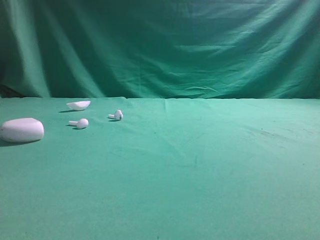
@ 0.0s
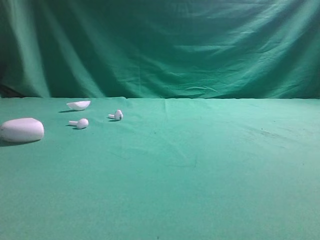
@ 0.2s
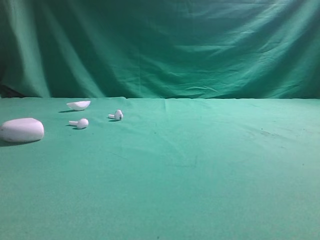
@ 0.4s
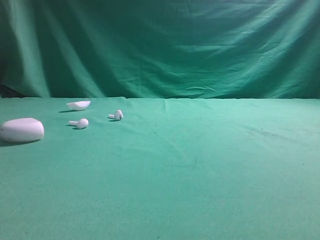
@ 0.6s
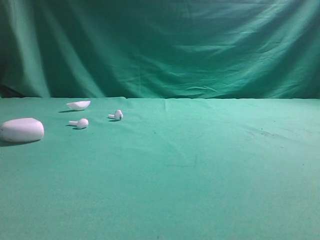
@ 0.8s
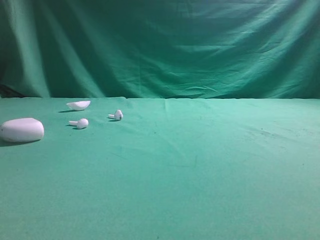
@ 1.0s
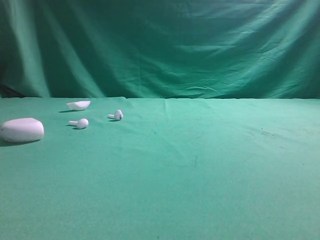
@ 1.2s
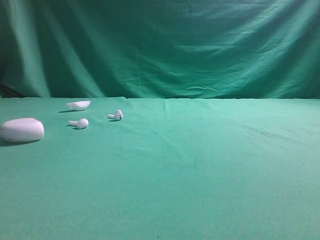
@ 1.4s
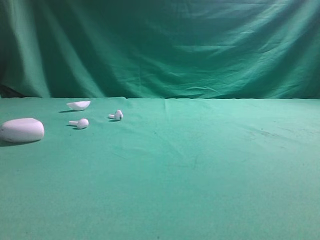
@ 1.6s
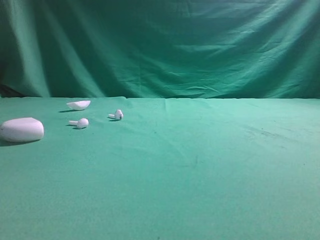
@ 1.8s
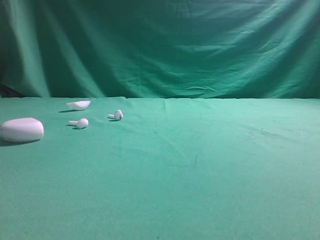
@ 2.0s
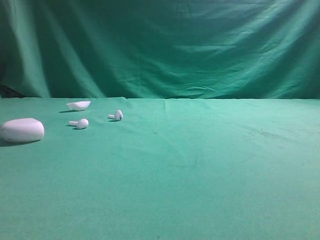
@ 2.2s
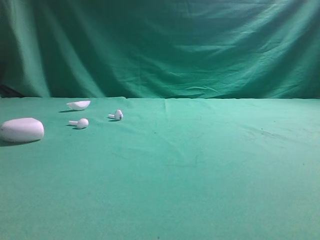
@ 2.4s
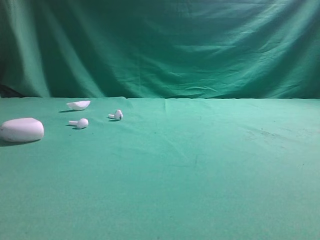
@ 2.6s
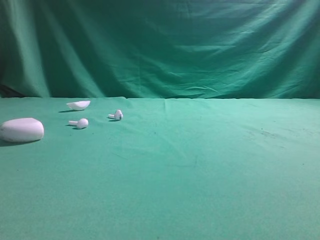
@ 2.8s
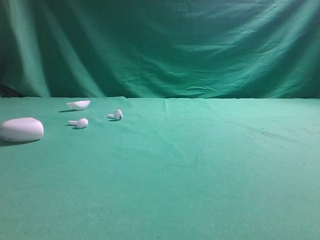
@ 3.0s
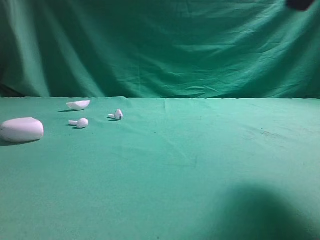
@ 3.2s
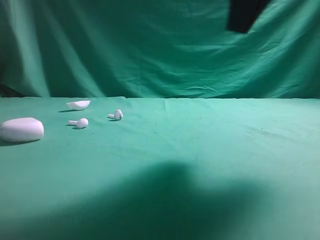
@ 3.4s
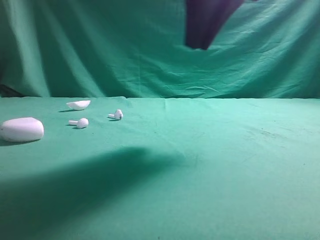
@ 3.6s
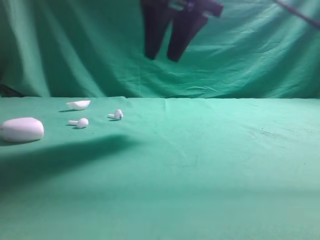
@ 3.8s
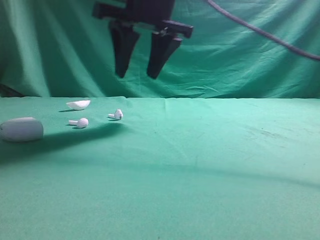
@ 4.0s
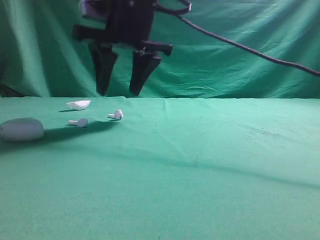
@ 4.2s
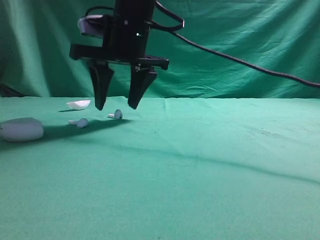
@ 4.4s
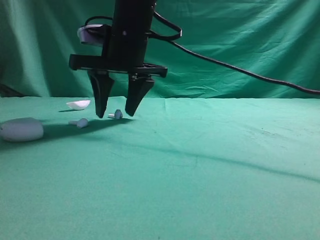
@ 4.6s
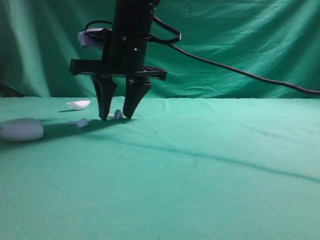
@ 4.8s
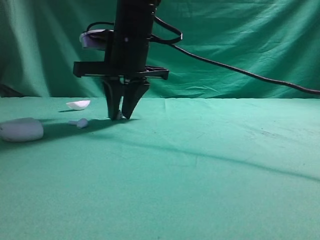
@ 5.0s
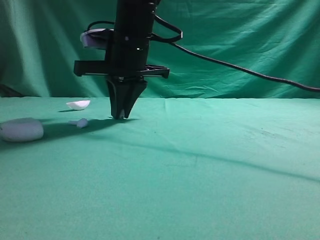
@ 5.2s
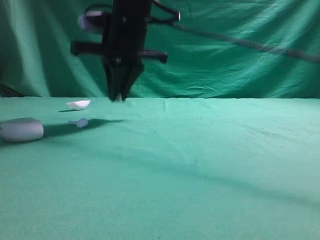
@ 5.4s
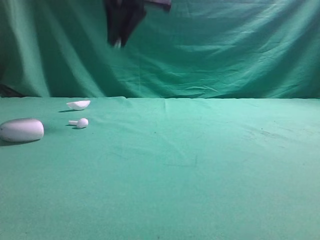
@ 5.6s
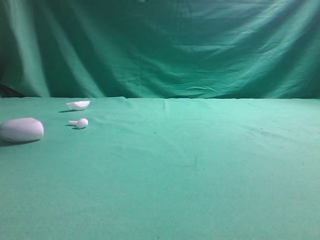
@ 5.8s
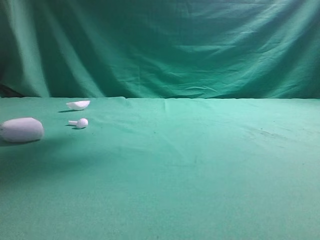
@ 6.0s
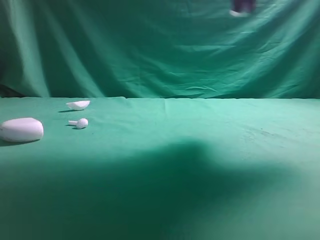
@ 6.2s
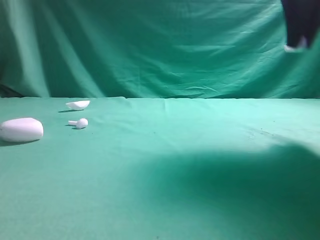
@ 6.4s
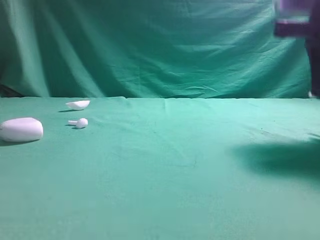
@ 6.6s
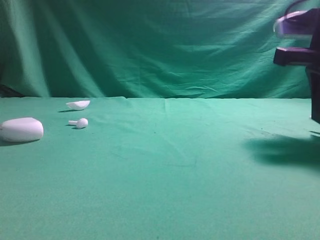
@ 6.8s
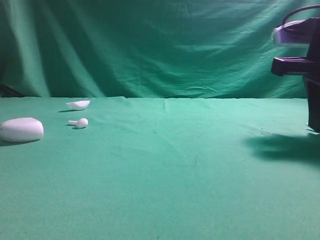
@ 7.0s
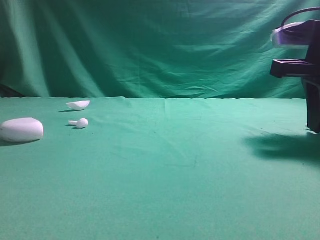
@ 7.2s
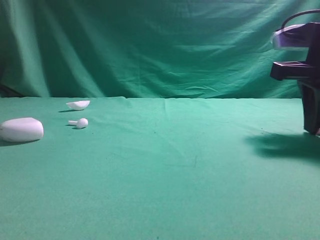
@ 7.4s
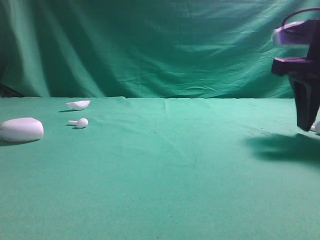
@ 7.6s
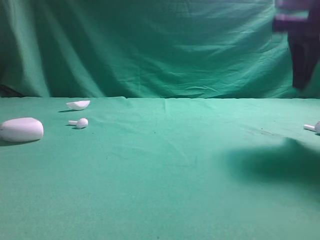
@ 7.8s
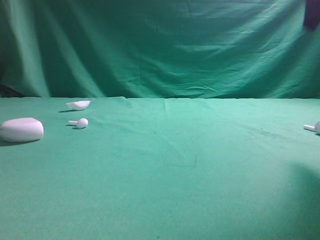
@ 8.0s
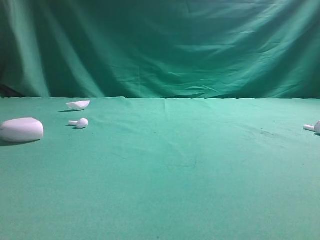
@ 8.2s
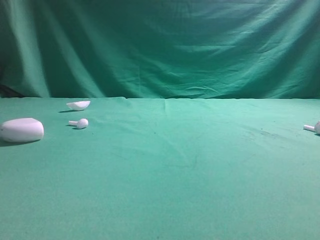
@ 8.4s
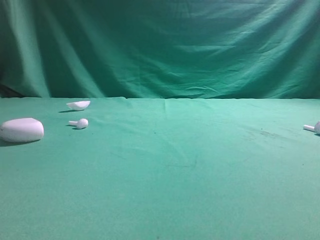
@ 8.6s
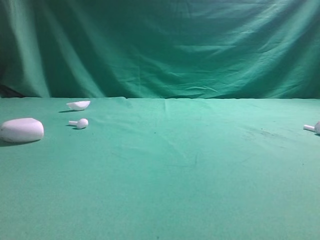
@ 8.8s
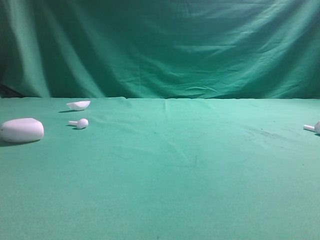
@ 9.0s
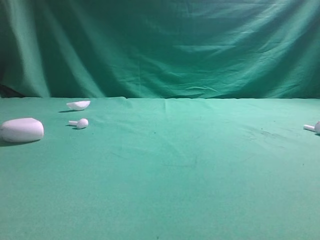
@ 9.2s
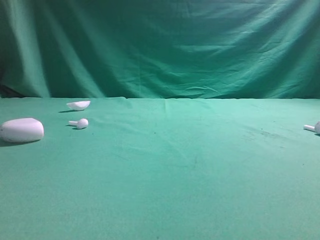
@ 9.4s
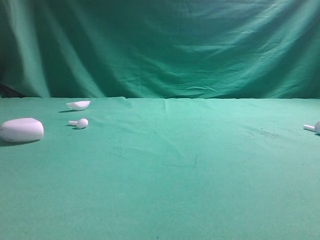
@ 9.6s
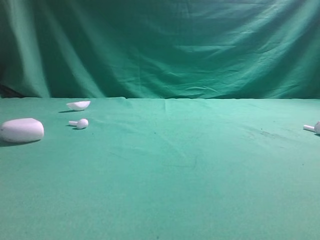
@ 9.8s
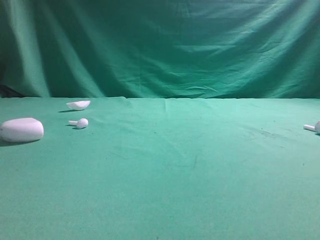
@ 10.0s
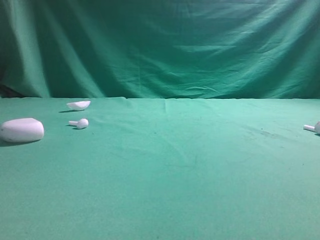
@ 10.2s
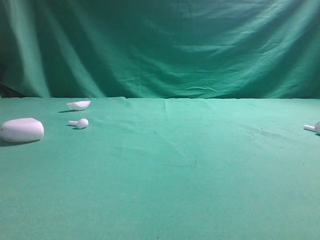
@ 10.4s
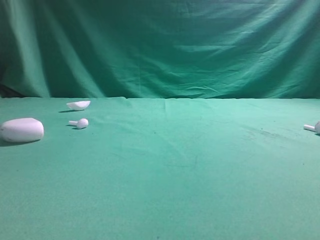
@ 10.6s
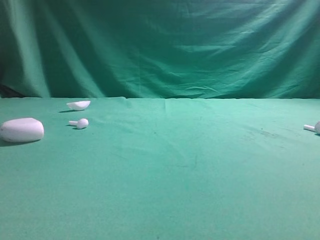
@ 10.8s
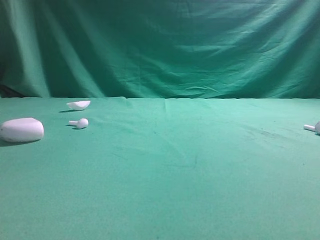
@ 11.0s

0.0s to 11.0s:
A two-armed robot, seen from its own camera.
Step, 0.0s to 5.4s: Grasp the Bluetooth earbud.
Step, 5.6s to 7.8s: Place bluetooth earbud on the right side of the table.

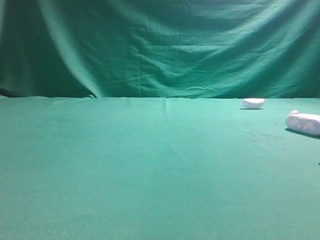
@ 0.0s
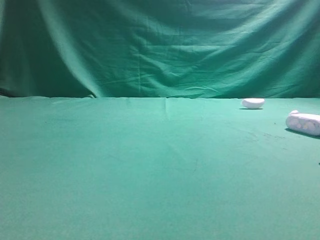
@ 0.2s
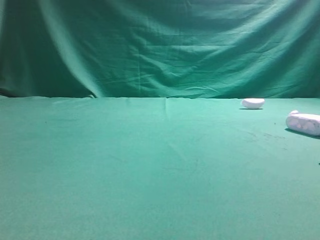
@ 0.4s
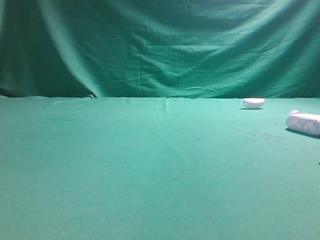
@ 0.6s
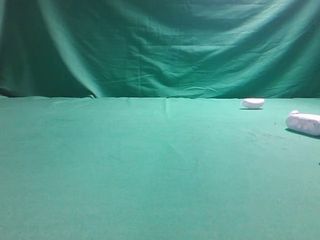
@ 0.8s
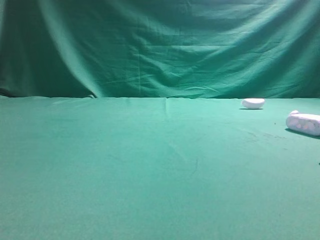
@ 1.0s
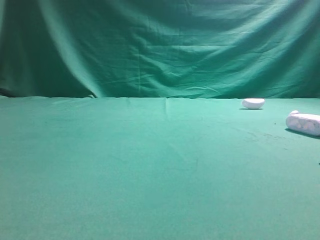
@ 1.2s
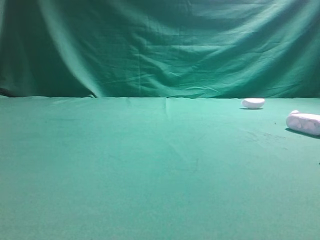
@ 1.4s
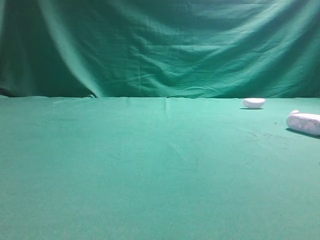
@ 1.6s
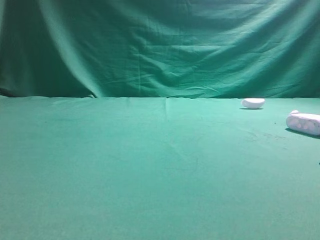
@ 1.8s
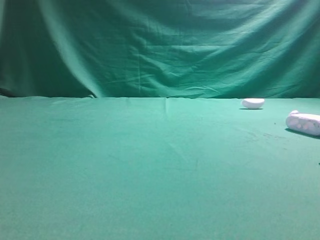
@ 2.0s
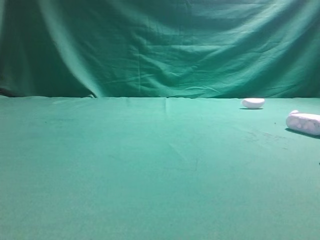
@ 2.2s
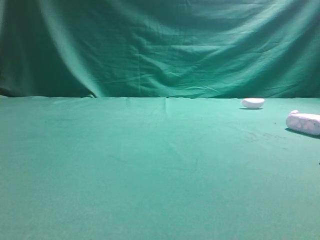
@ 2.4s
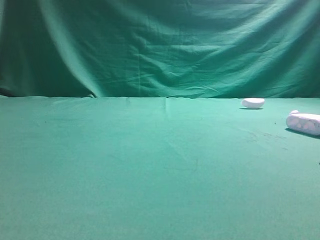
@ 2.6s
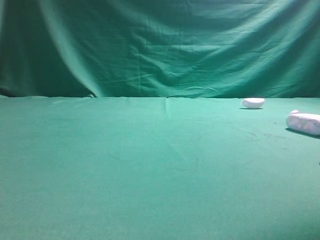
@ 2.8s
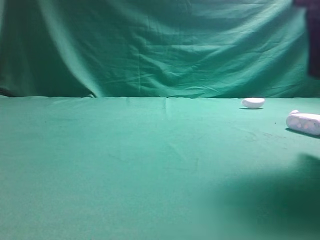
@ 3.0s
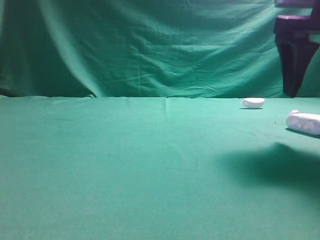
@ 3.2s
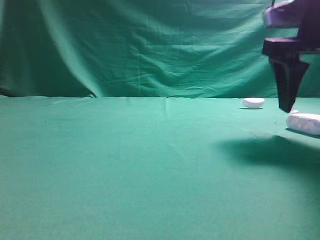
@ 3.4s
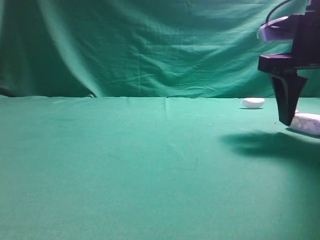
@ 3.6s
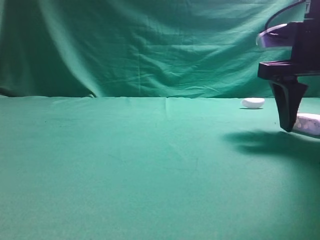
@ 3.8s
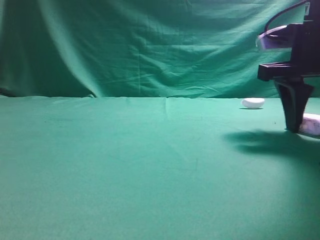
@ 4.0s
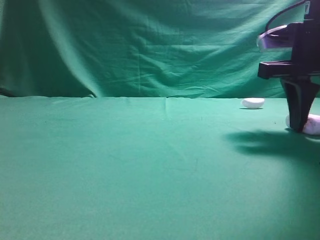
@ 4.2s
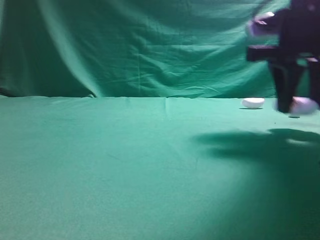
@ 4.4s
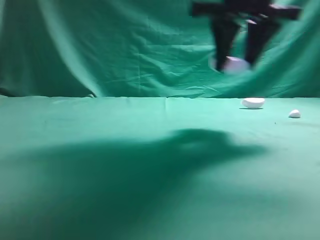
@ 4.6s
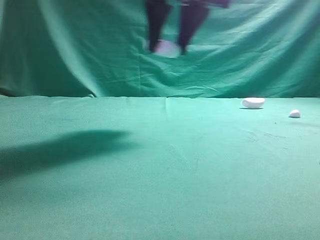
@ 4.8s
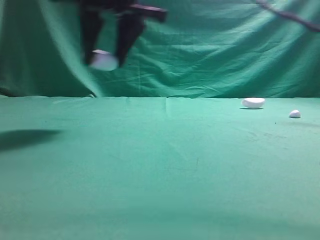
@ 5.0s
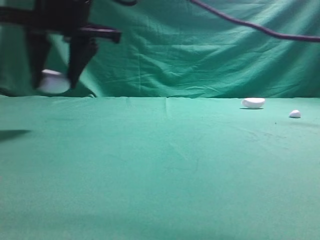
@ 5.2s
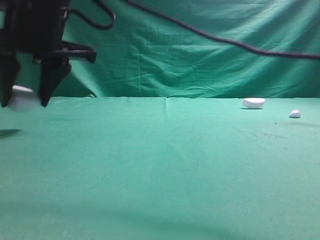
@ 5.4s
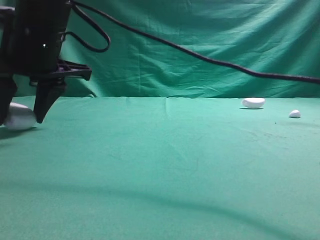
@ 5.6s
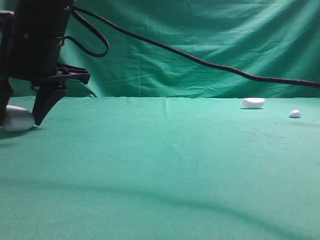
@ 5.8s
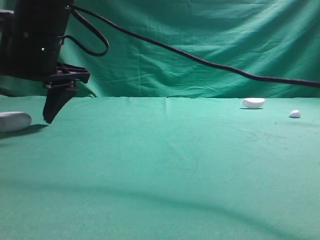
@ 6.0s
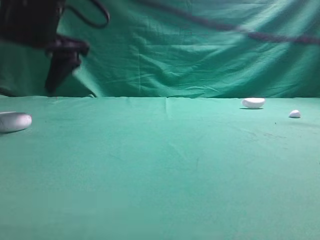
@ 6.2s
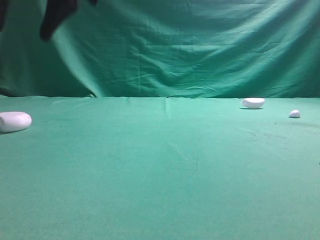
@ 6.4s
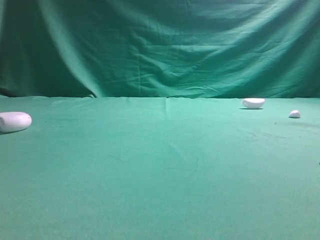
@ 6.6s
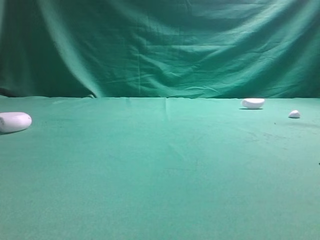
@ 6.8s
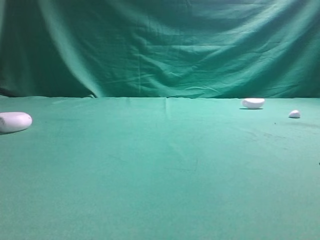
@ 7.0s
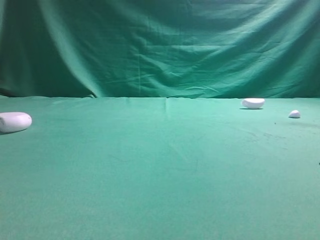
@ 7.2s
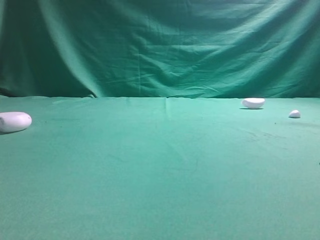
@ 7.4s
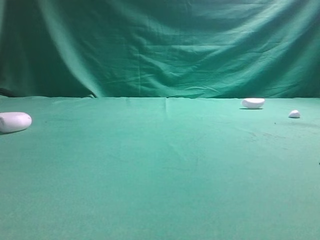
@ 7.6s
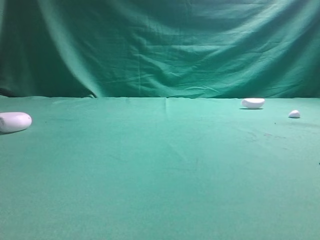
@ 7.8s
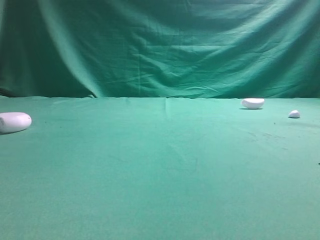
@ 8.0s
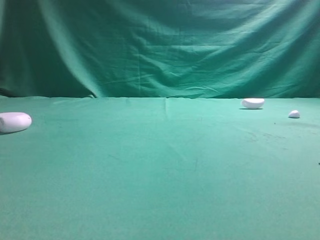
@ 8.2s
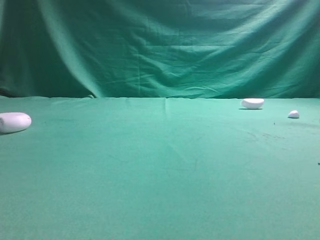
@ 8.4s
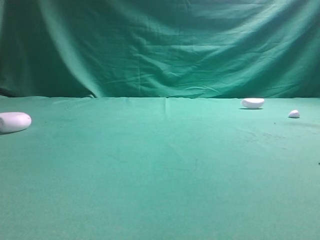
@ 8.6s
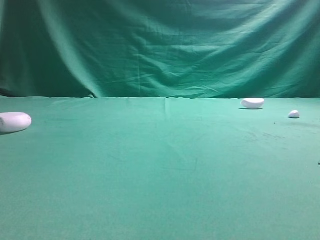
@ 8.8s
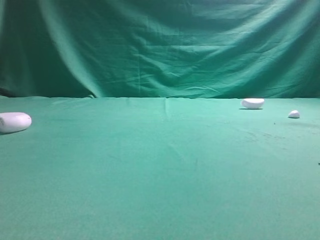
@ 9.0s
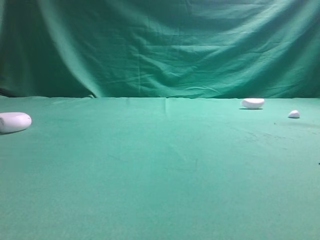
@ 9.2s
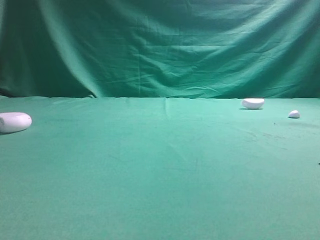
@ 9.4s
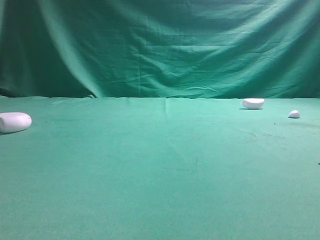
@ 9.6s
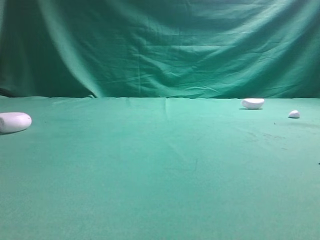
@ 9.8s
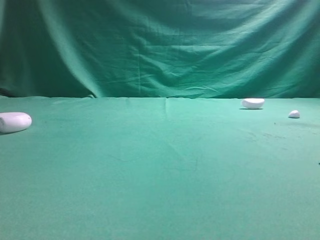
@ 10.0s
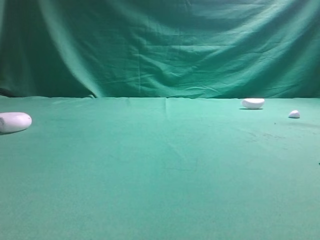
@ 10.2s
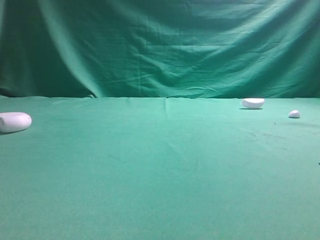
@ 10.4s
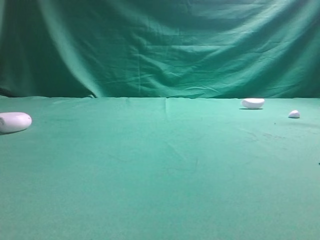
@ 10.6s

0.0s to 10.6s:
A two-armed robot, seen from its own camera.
Step, 0.0s to 3.6s: Grasp the Bluetooth earphone case.
Step, 3.8s to 6.2s: Place bluetooth earphone case on the left side of the table.

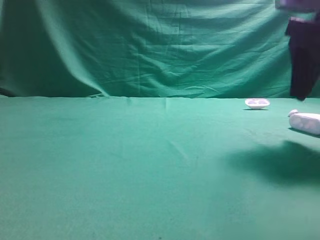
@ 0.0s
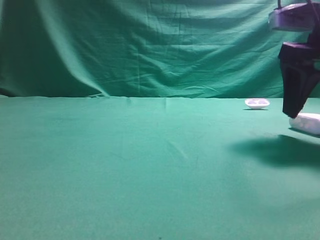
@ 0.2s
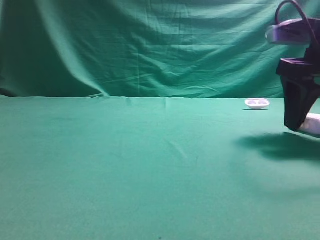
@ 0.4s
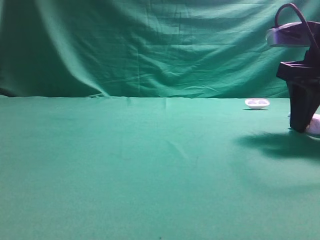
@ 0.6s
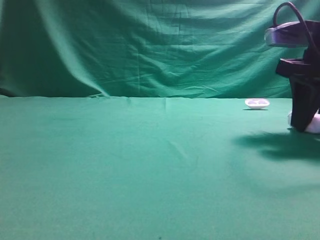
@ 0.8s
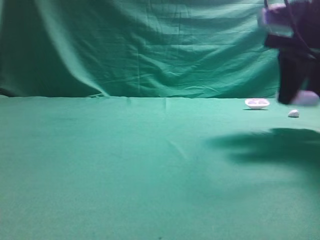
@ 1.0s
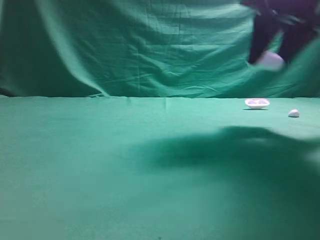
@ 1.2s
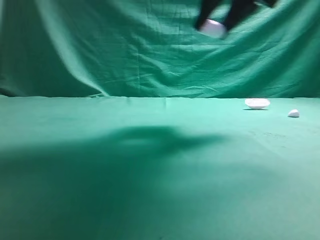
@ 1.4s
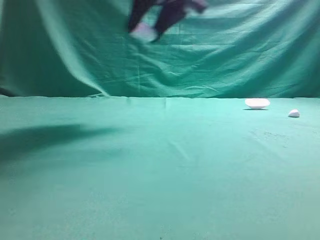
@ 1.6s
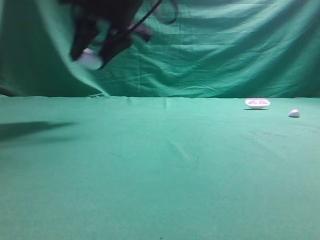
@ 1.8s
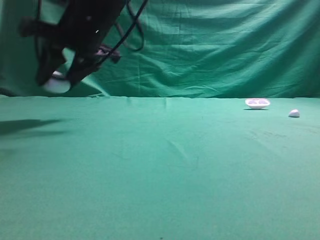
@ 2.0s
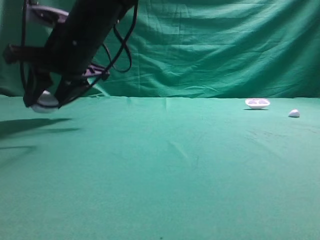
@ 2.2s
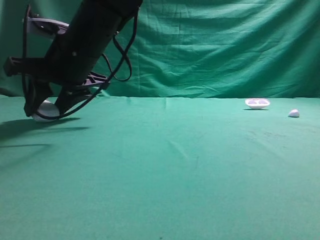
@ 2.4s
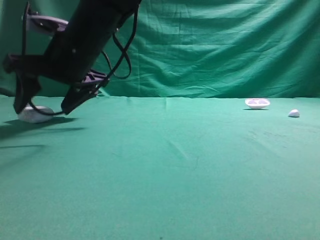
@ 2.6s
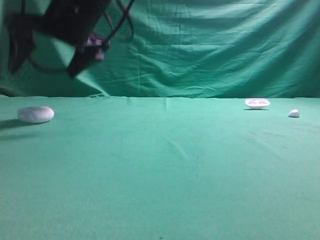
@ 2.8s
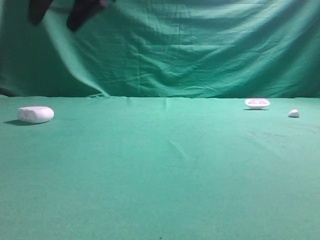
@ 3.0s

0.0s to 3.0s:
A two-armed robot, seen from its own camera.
Step, 1.2s to 2.6s: Place bluetooth earphone case on the left side of the table.
